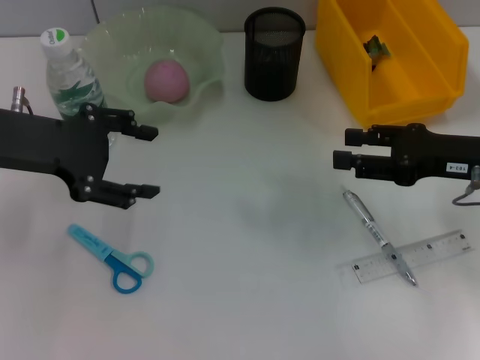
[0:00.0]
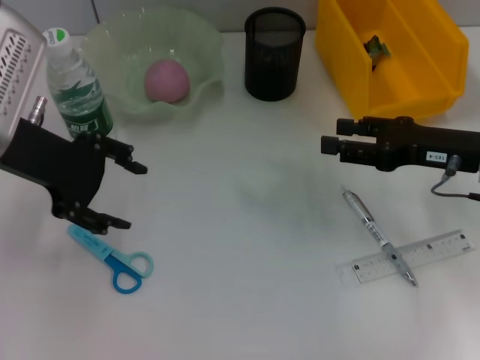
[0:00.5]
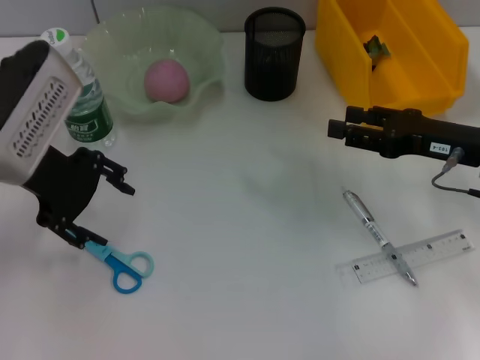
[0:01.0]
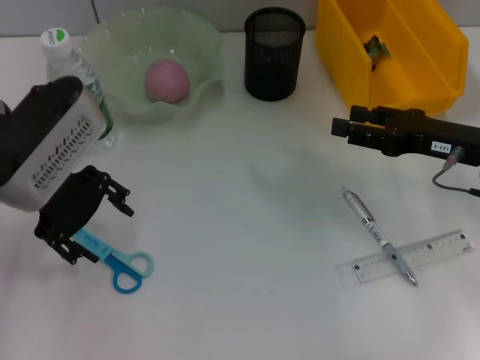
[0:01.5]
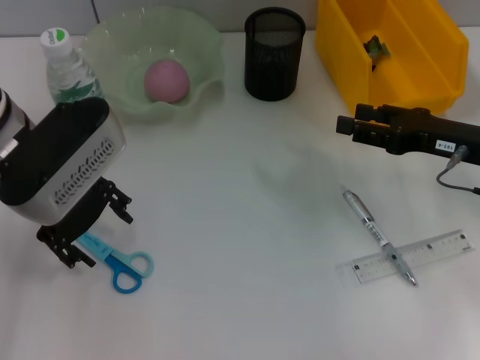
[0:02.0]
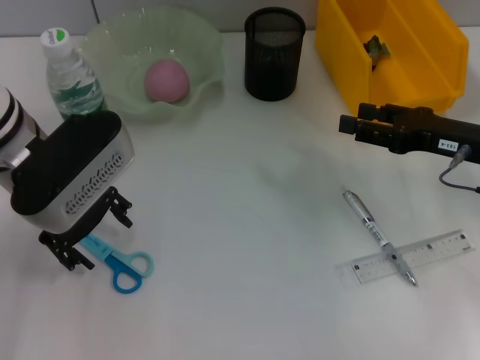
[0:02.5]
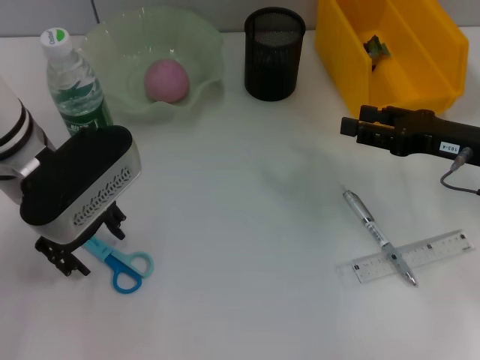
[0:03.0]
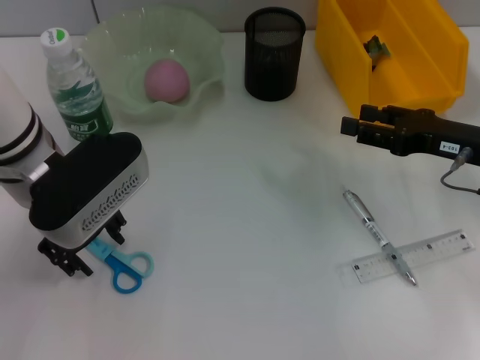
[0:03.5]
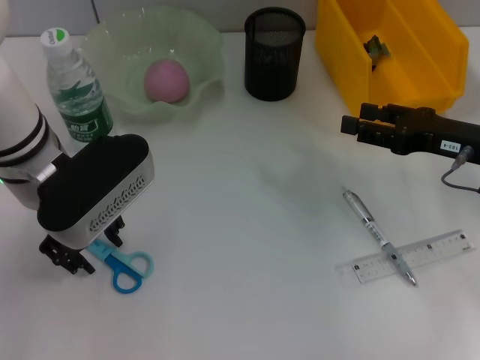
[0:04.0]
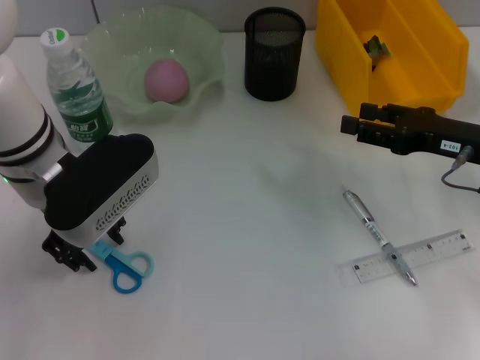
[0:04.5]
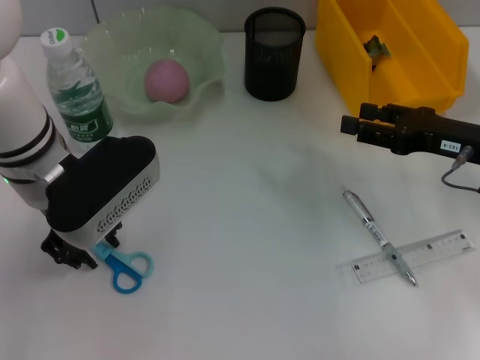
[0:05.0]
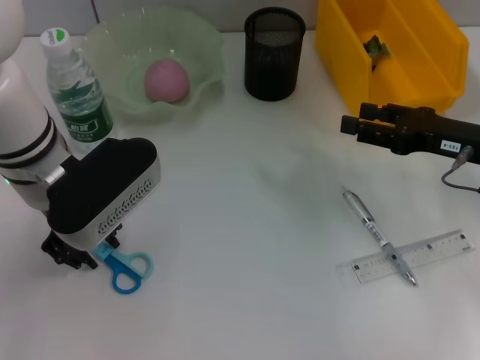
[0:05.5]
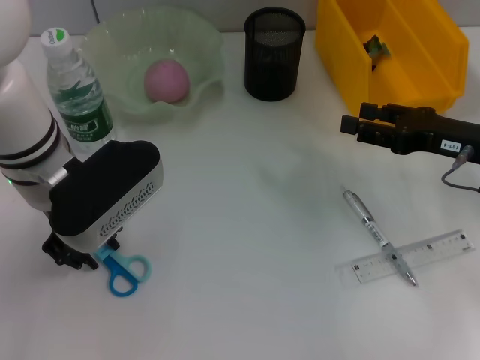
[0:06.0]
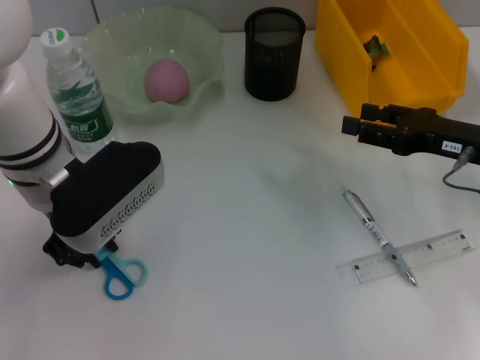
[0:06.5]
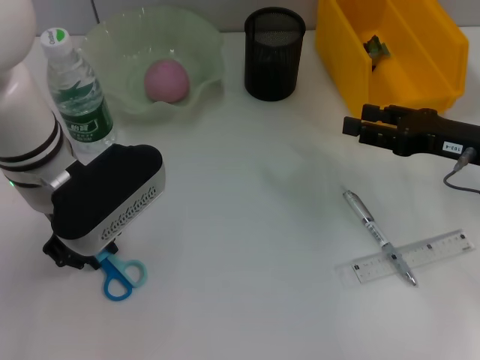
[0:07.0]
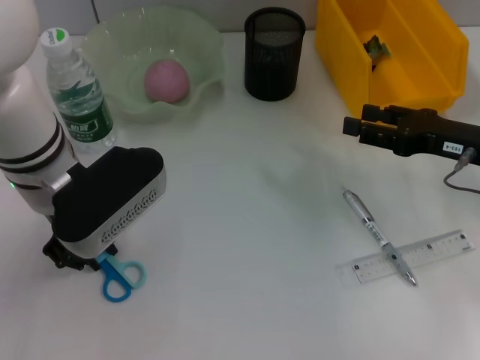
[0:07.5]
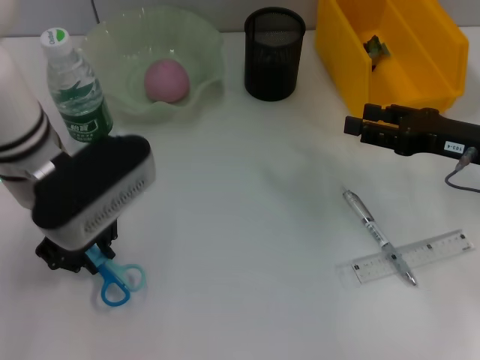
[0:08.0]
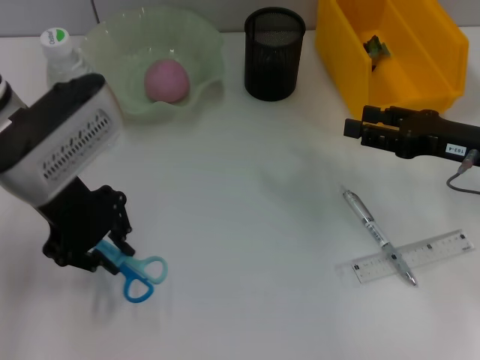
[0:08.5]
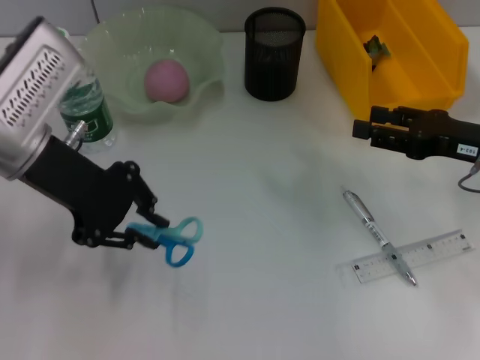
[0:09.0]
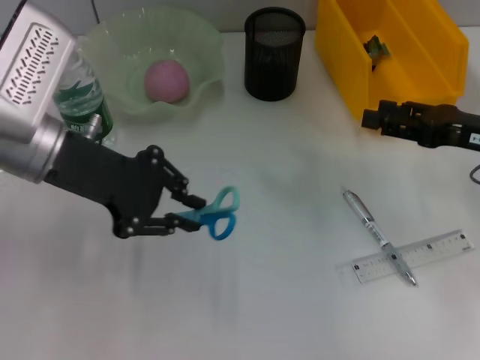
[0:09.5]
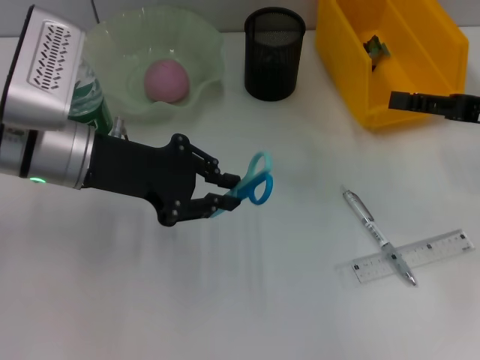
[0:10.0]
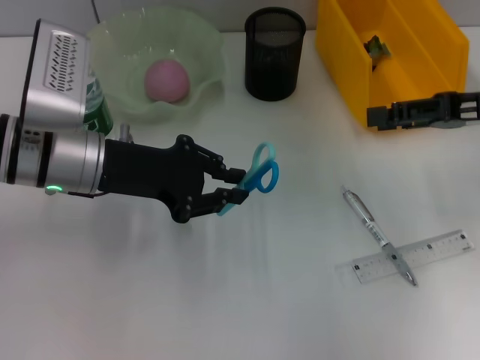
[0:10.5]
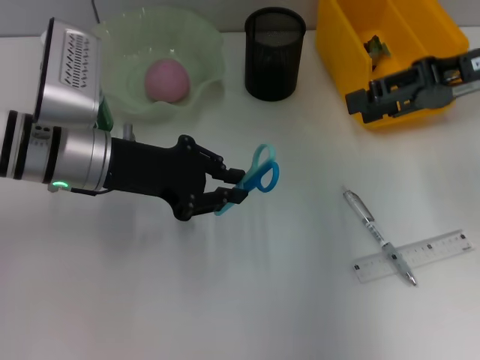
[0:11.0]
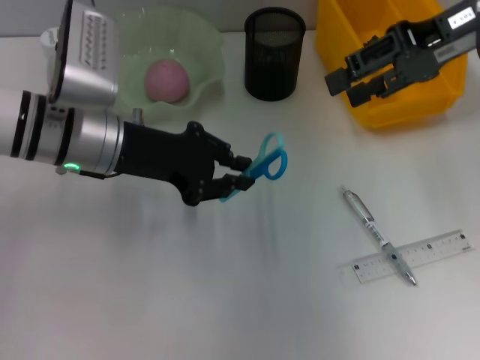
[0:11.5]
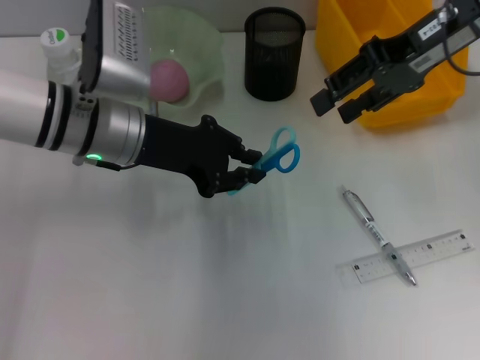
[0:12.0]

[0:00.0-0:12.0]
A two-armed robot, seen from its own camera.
Step, 0:00.0 to 0:07.0: Grab the blue scissors with the left hand.
0:00.0 to 0:02.0: The left gripper is displaced to the right by roughly 5 cm.
0:02.0 to 0:04.0: The grippers move only a little.
0:04.0 to 0:06.0: The left gripper closes its fingers.
0:06.0 to 0:08.0: The two grippers keep their place.
0:08.0 to 0:10.0: The right gripper moves approximately 5 cm.
0:10.0 to 0:12.0: The right gripper is displaced upward, to the left and forward by about 20 cm.

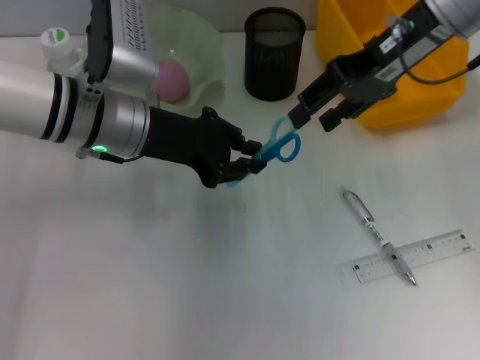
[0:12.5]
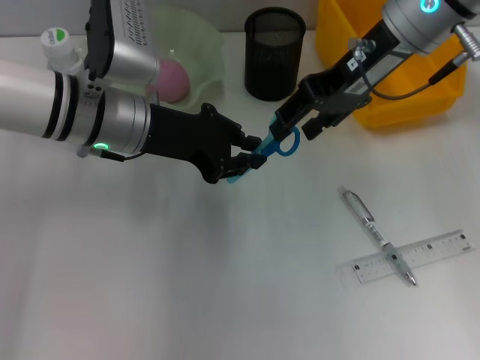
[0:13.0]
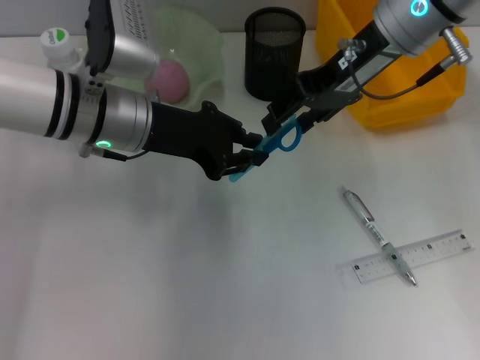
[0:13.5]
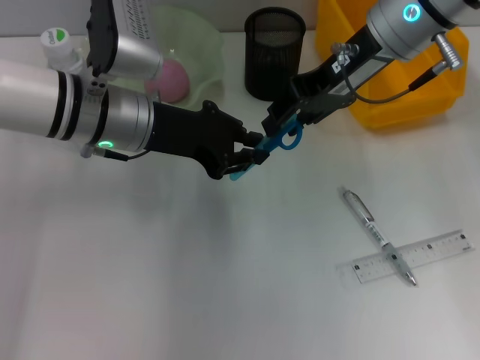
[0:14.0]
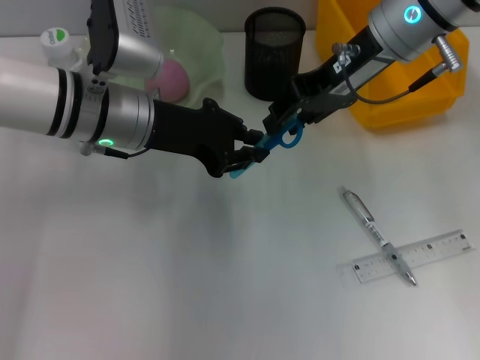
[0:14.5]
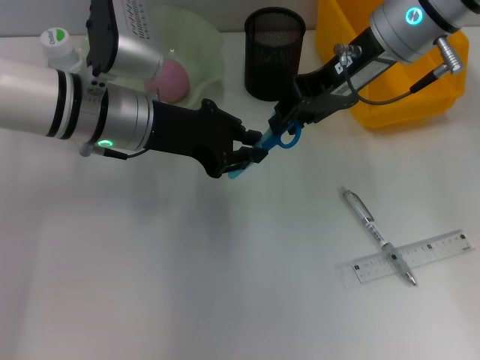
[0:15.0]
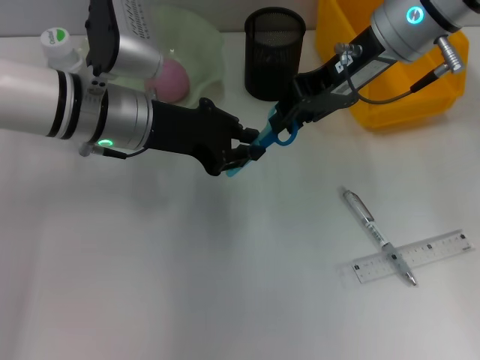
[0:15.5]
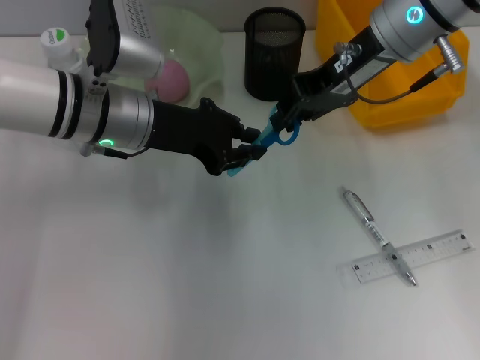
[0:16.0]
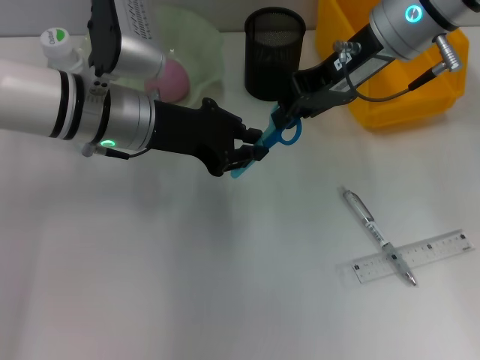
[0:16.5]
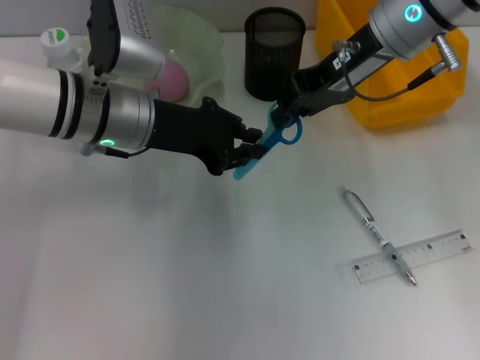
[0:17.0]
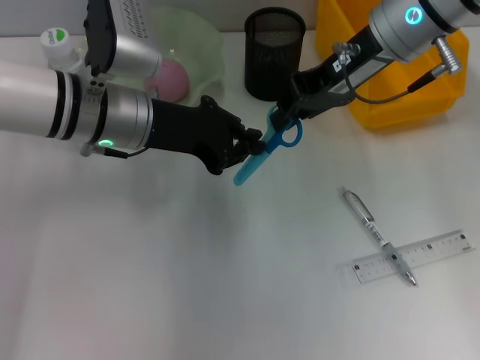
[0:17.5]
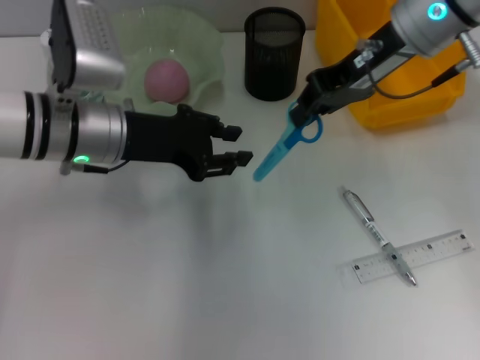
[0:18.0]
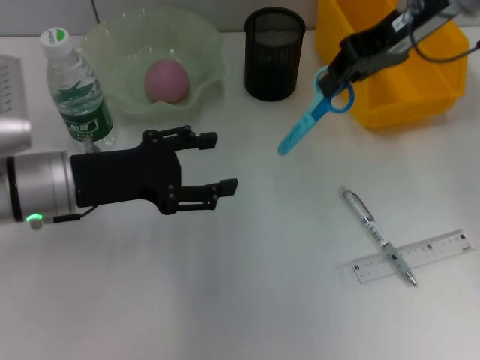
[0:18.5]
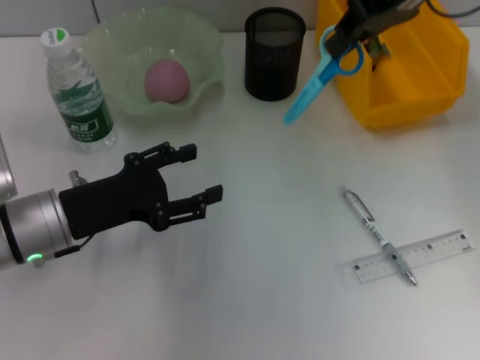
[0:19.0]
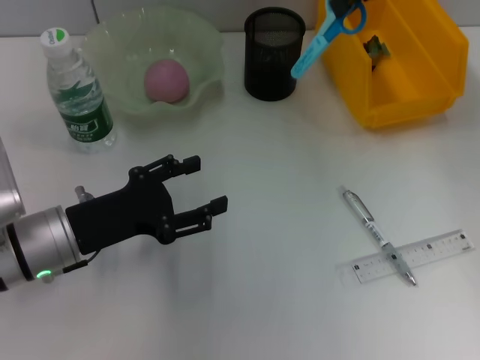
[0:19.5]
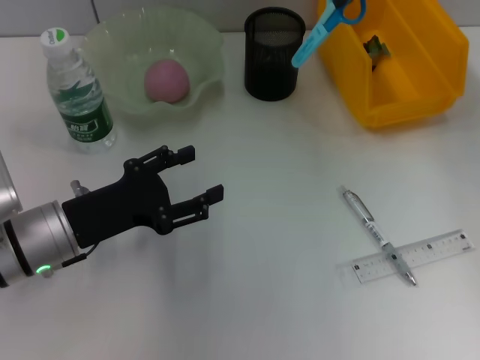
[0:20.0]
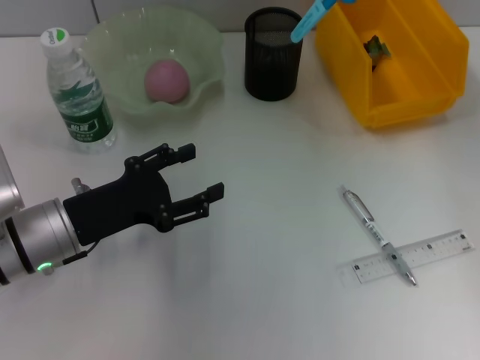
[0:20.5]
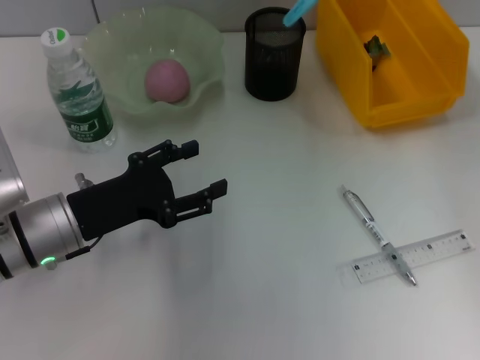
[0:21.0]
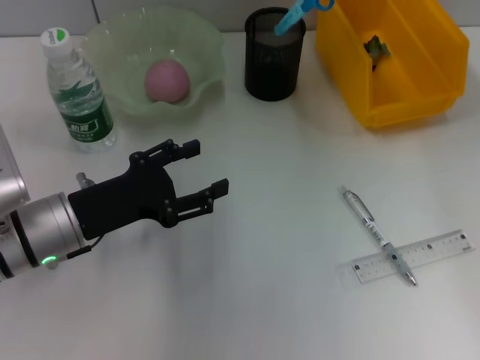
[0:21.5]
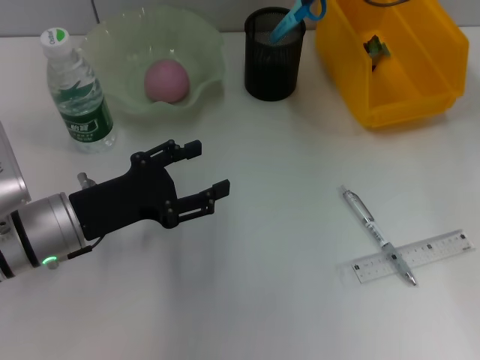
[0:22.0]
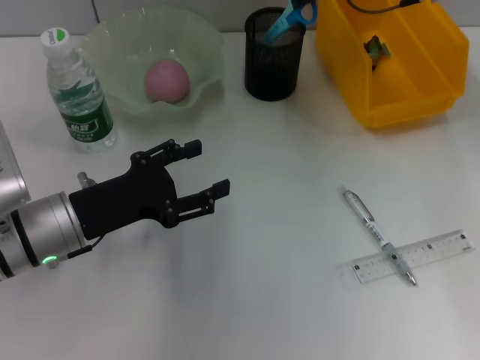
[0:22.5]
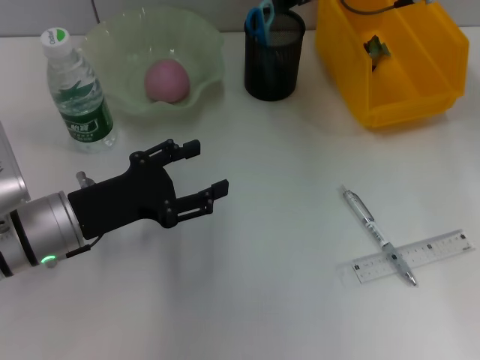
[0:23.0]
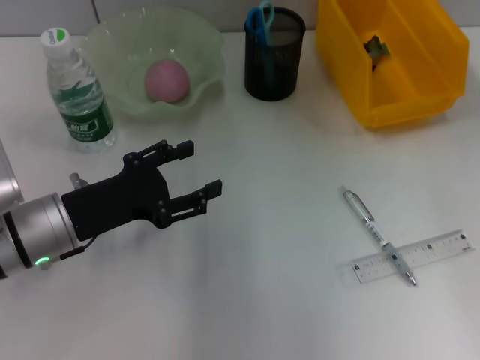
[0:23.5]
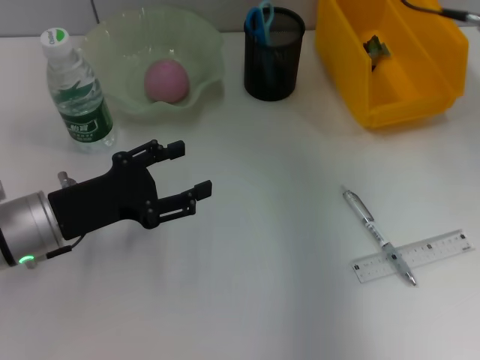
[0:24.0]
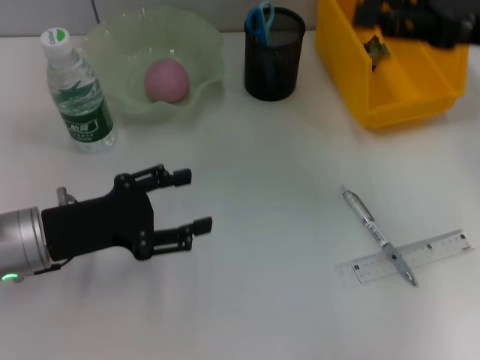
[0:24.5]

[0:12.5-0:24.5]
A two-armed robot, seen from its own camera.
Step, 0:12.5 to 0:18.0: Pass the blue scissors from the left hand to the right hand.
Step, 0:18.5 to 0:23.0: Place the blue scissors into the pen holder with the right hand.
0:12.5 to 0:14.5: The grippers stay close to where they were, moving slightly.
0:14.5 to 0:16.5: The right gripper closes its fingers.
0:16.5 to 0:18.5: The right gripper changes place by approximately 5 cm. The left gripper heads to the left and backward, covering roughly 10 cm, and opens.
0:18.5 to 0:20.5: The left gripper shifts about 5 cm downward; the right gripper travels upward by some 5 cm.
0:20.5 to 0:22.5: The right gripper travels downward by about 10 cm.
0:22.5 to 0:24.5: The right gripper travels to the right and backward by roughly 20 cm, and opens its fingers.

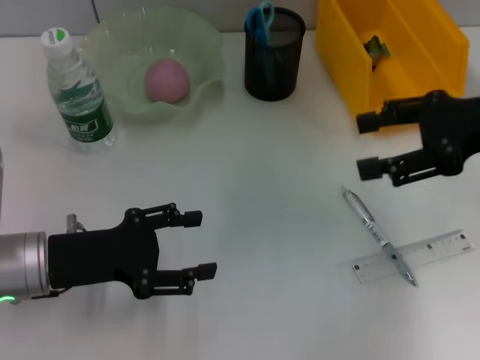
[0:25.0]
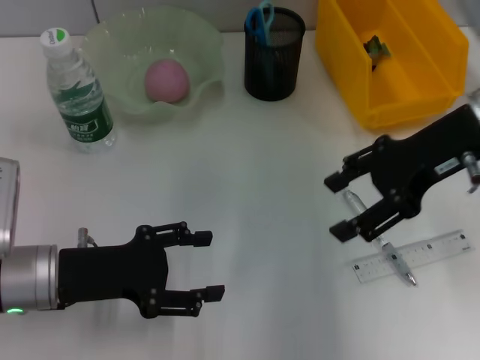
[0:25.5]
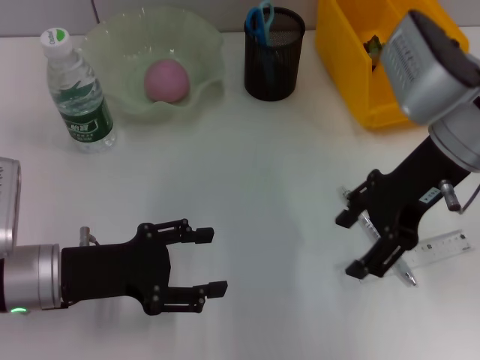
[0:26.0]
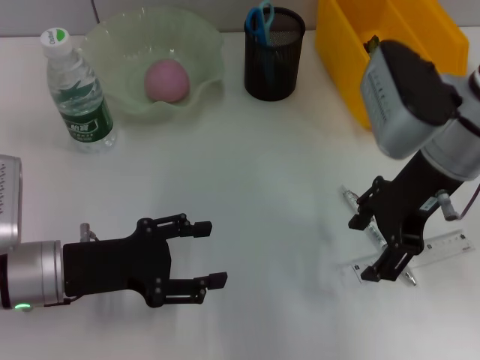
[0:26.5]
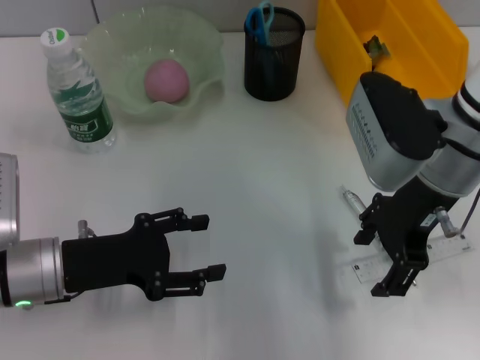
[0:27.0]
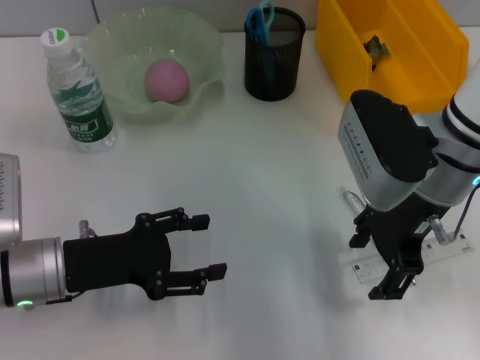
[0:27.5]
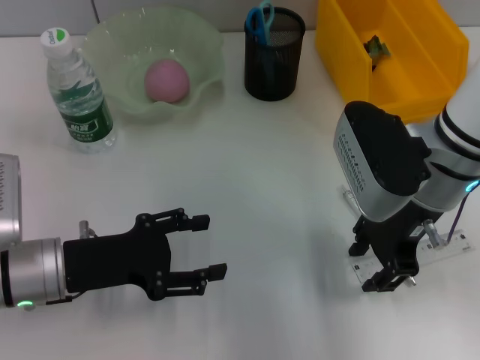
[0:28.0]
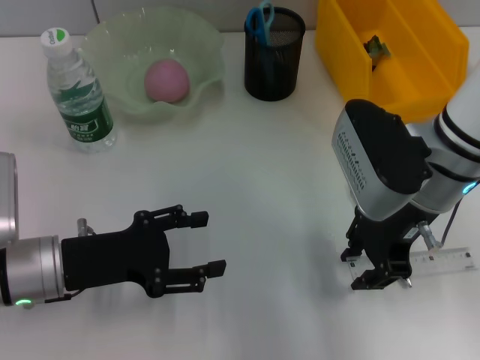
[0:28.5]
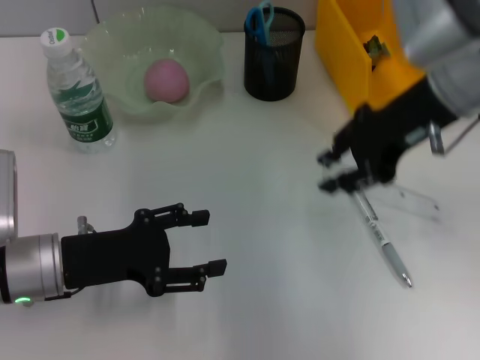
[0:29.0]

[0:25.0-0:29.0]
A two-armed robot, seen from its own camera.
Step, 0:25.0 to 0:28.0: Grab the ruler with the right hand.
0:25.0 to 0:27.0: The right gripper is displaced to the left by some 10 cm.
0:27.0 to 0:29.0: The right gripper moves upward, approximately 5 cm, and closes up.
